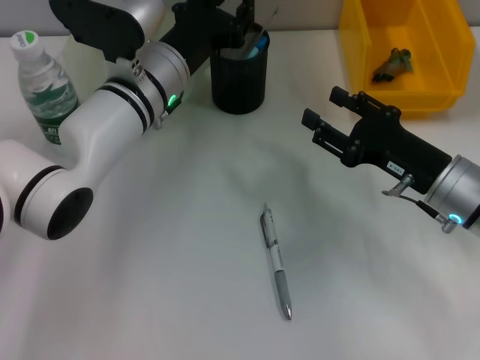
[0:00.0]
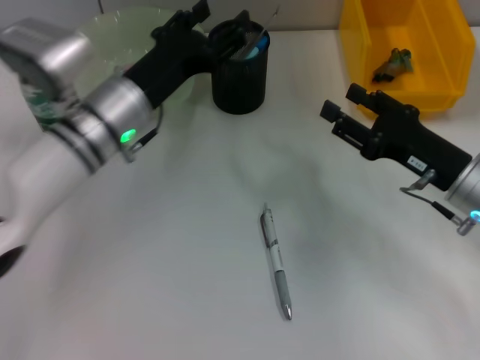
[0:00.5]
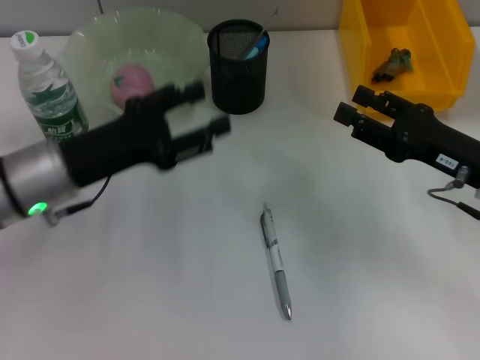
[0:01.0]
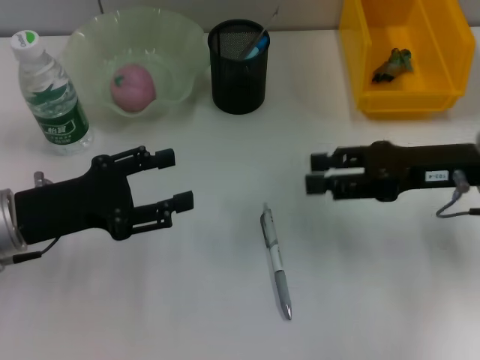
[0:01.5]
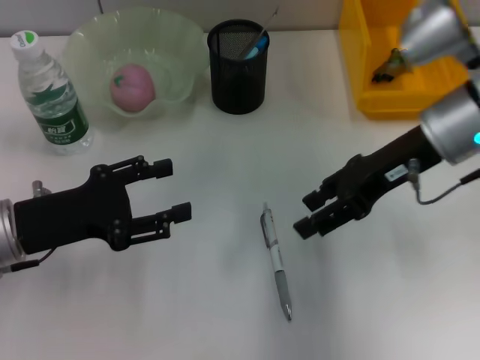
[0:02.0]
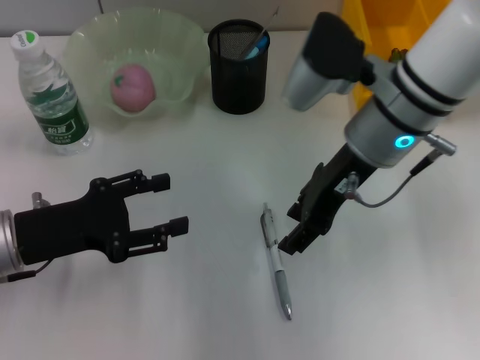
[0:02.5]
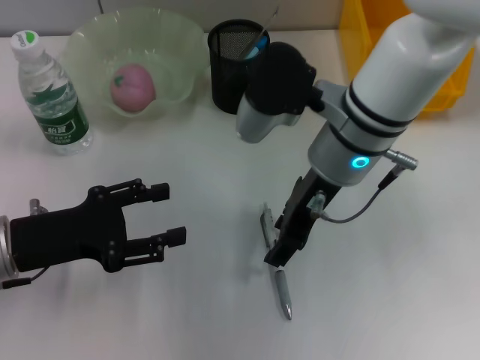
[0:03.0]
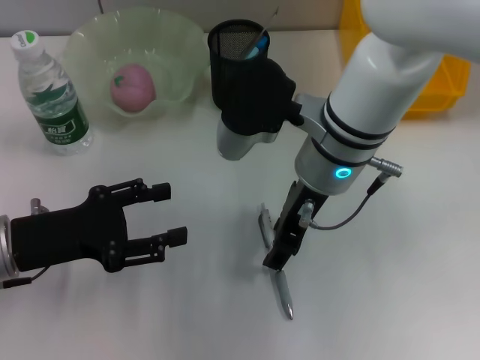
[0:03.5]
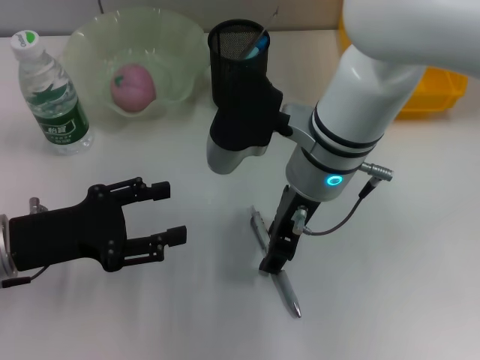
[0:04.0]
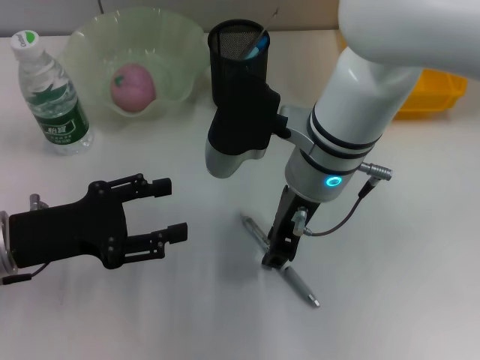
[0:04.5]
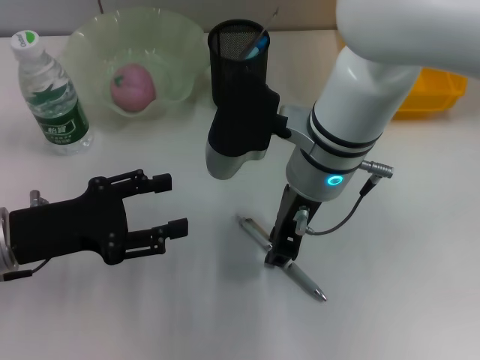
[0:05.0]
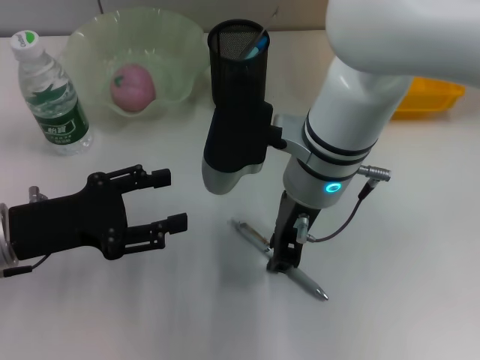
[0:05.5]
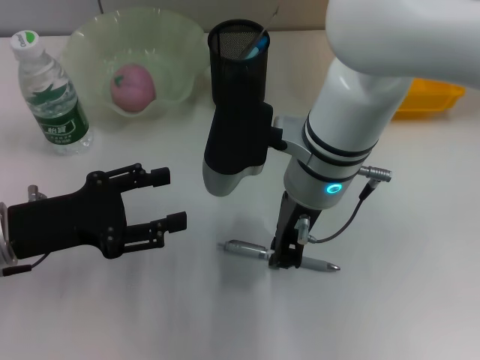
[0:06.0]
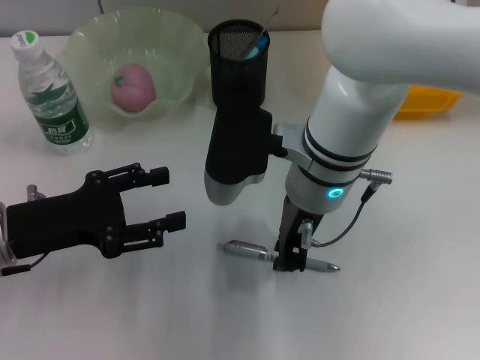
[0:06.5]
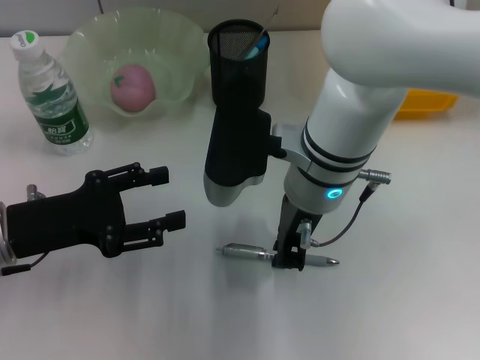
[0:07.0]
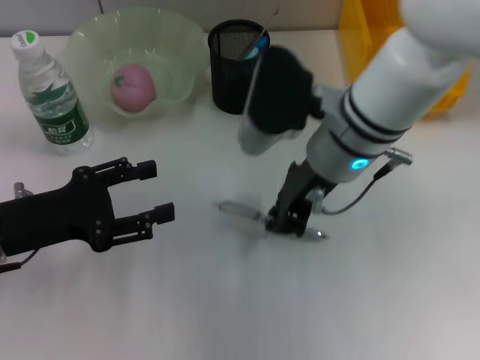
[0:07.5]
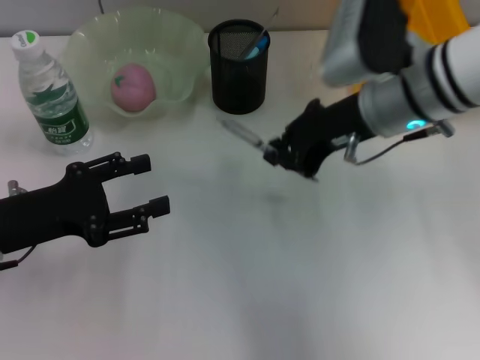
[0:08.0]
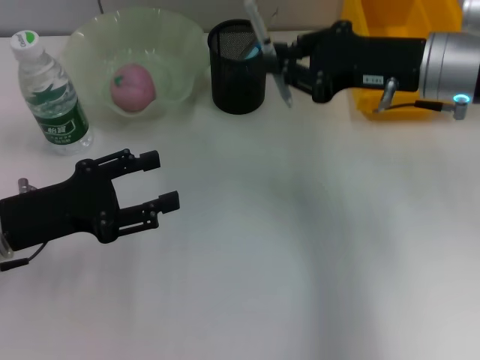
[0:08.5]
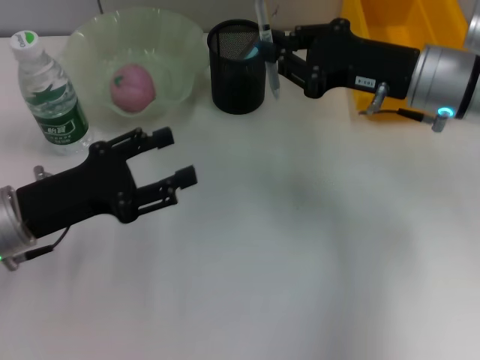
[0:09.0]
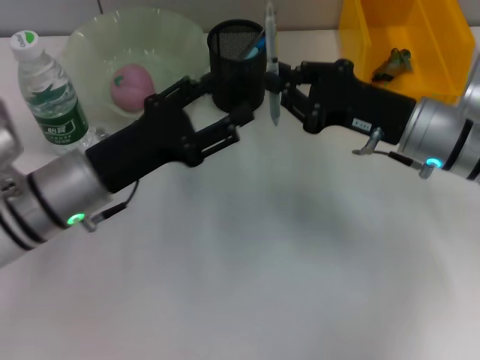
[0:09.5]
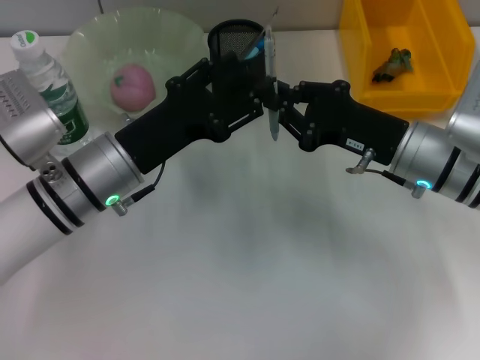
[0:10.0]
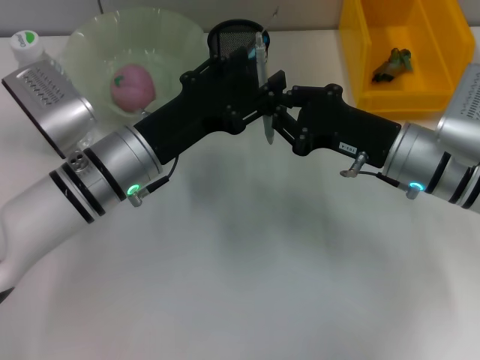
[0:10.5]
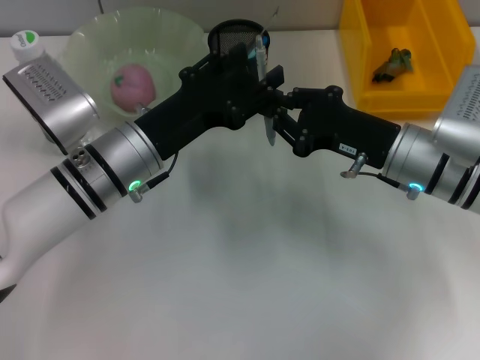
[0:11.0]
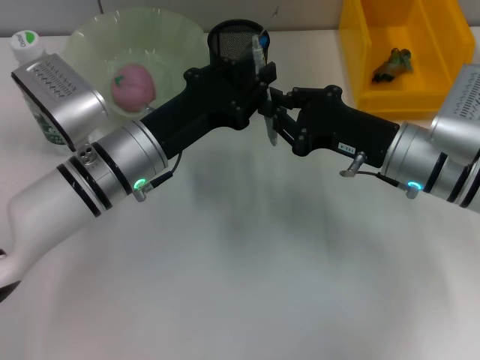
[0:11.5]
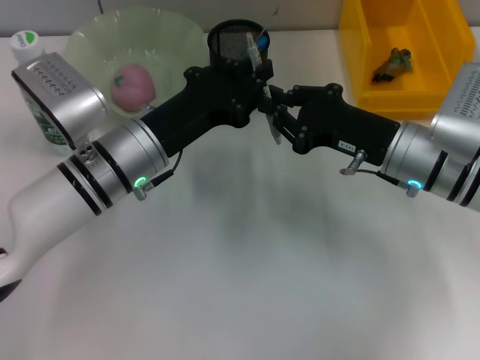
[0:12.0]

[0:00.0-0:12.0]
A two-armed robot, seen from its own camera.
Step, 0:01.0 to 0:07.0: Grab the gray spring-action pen with the right hand.
0:00.0 to 0:02.0: The right gripper moves upward and forward, some 15 cm. Meanwhile the left gripper shifts about 20 cm to the left and backward, and opens its fingers.
0:02.0 to 0:04.0: The right gripper travels to the left by roughly 15 cm.
0:04.0 to 0:06.0: The right gripper closes its fingers.
0:06.0 to 0:08.0: The right gripper shifts about 10 cm to the right.
0:08.0 to 0:10.0: The right gripper moves downward, about 10 cm. The left gripper goes roughly 10 cm to the right.
0:10.0 to 0:12.0: The left gripper closes its fingers.

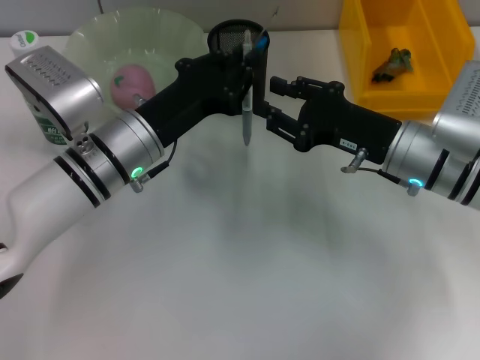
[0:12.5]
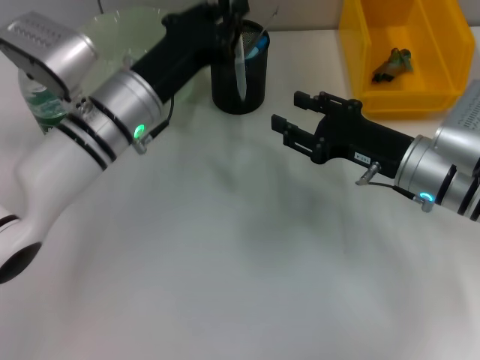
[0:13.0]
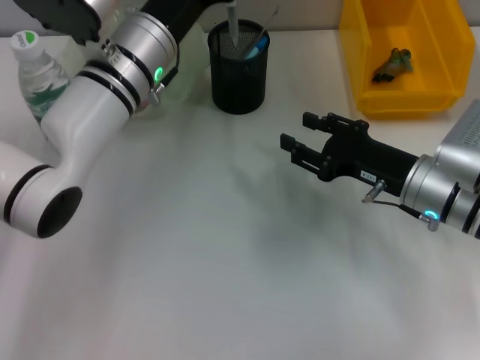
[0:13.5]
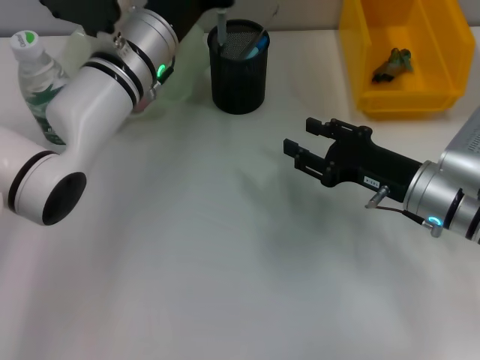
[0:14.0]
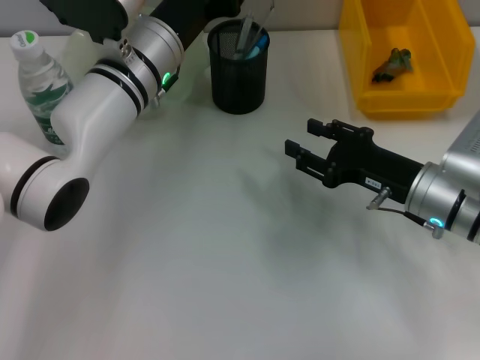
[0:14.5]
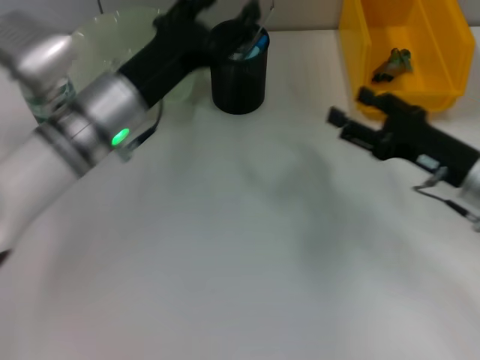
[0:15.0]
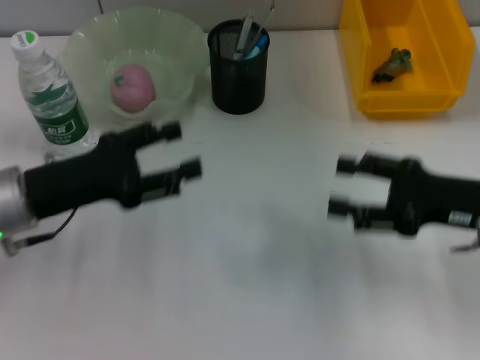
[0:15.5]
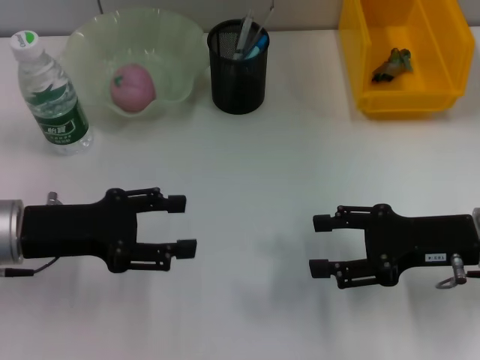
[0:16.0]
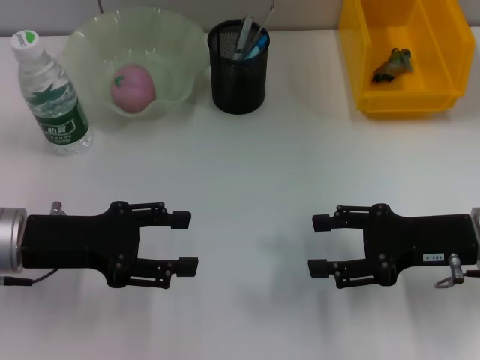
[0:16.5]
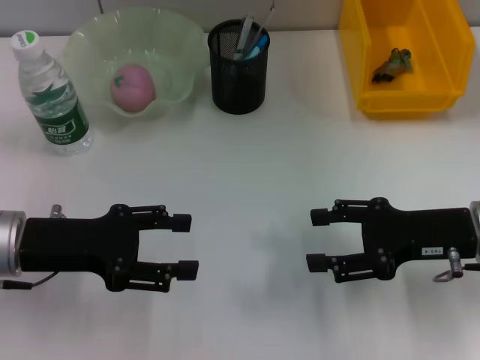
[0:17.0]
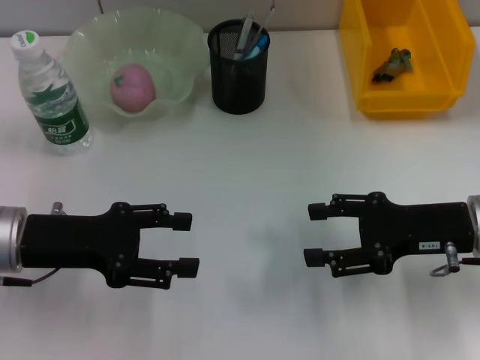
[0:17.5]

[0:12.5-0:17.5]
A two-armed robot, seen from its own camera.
Step, 0:13.0 to 0:14.5: Place the gray spring-action pen into the pen holder with the left hand.
0:12.5 to 0:15.0: The left gripper goes forward and returns, approximately 10 cm each way, and opens its fingers. Meanwhile the right gripper shifts some 5 cm to the right, and opens its fingers.
0:15.0 to 0:17.5: The left gripper shifts approximately 15 cm to the left and backward.
